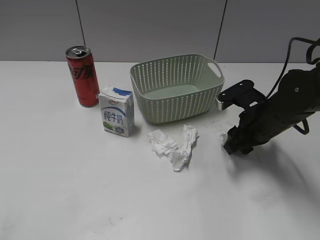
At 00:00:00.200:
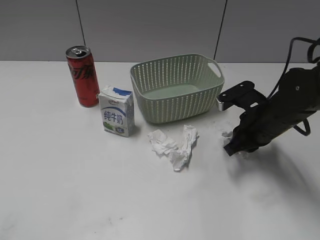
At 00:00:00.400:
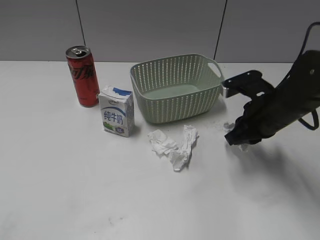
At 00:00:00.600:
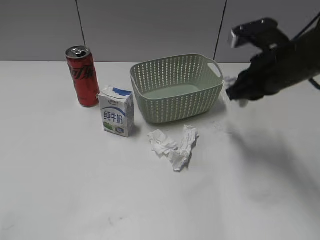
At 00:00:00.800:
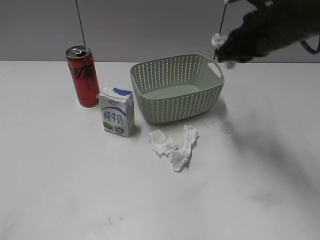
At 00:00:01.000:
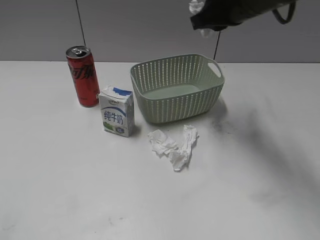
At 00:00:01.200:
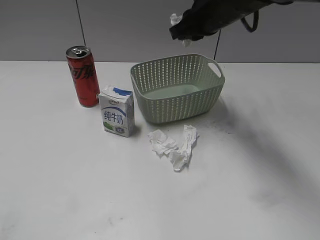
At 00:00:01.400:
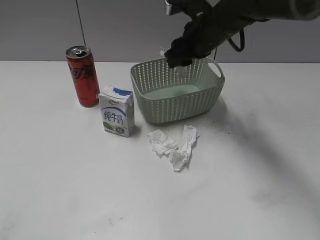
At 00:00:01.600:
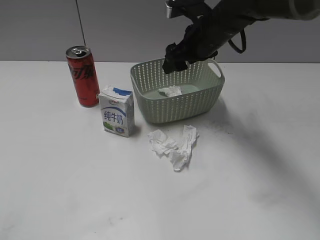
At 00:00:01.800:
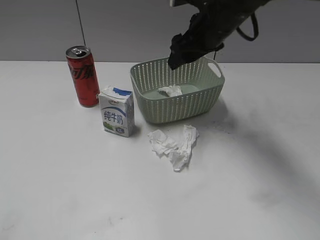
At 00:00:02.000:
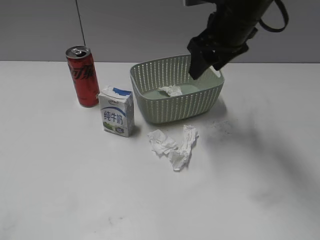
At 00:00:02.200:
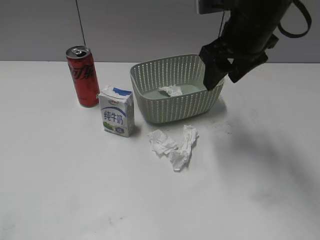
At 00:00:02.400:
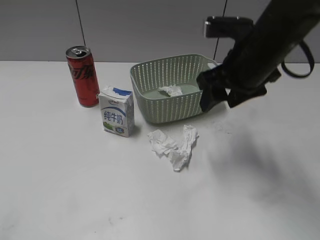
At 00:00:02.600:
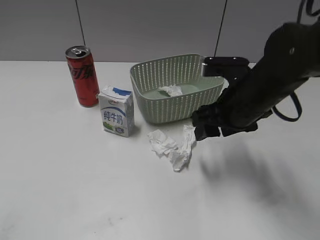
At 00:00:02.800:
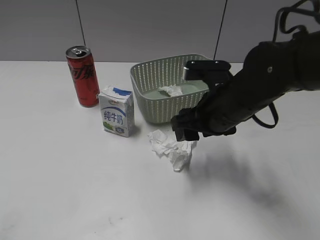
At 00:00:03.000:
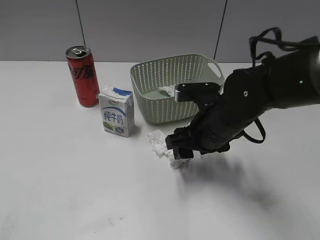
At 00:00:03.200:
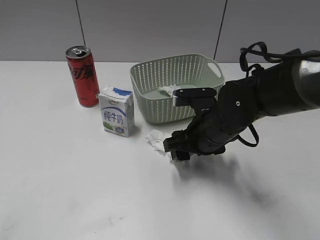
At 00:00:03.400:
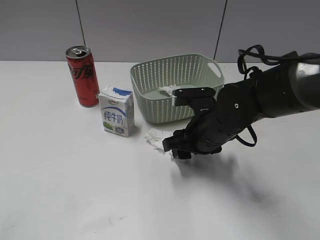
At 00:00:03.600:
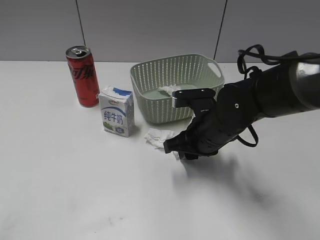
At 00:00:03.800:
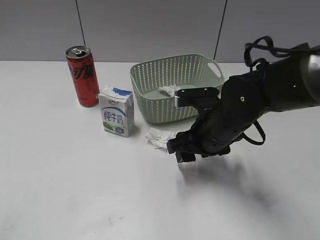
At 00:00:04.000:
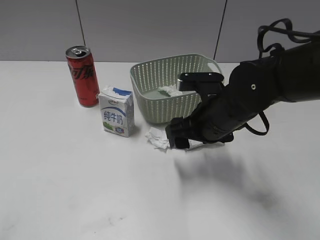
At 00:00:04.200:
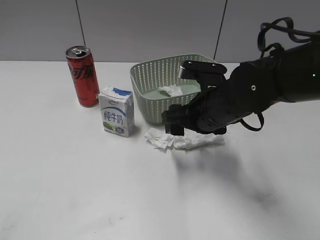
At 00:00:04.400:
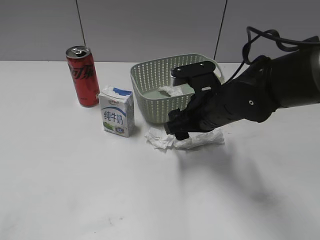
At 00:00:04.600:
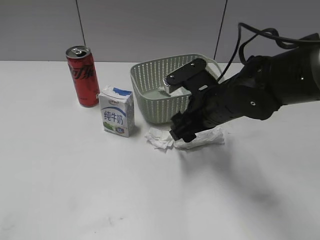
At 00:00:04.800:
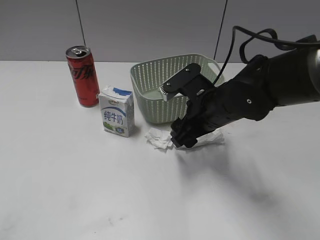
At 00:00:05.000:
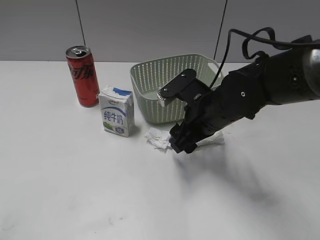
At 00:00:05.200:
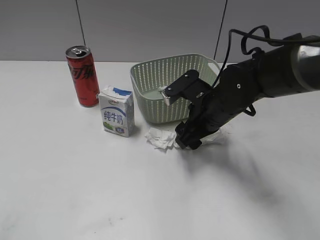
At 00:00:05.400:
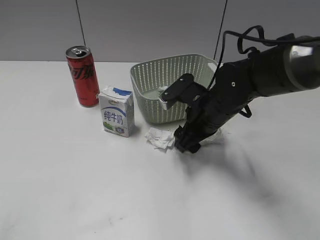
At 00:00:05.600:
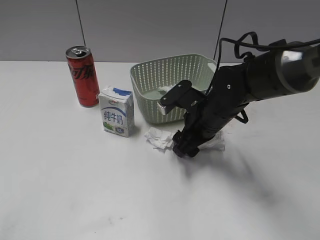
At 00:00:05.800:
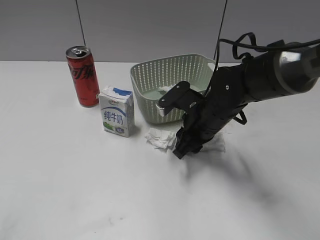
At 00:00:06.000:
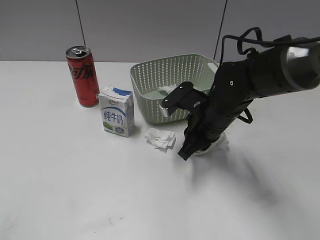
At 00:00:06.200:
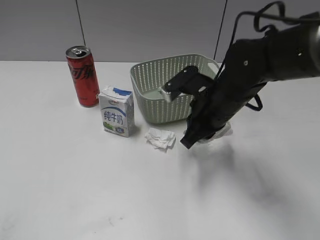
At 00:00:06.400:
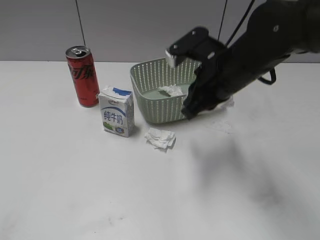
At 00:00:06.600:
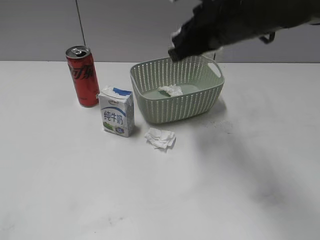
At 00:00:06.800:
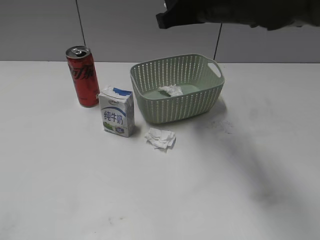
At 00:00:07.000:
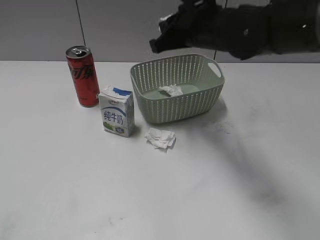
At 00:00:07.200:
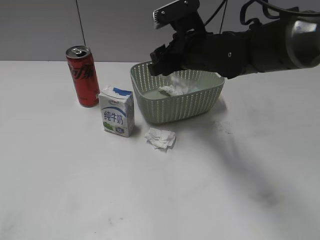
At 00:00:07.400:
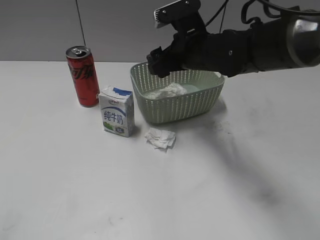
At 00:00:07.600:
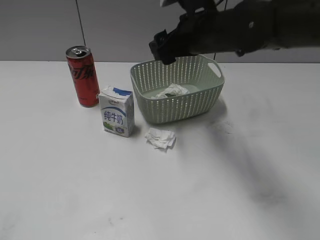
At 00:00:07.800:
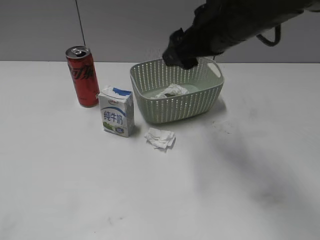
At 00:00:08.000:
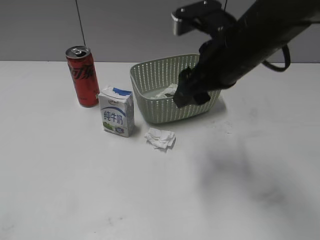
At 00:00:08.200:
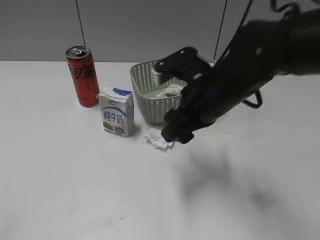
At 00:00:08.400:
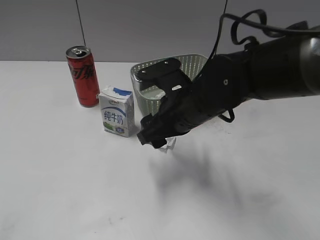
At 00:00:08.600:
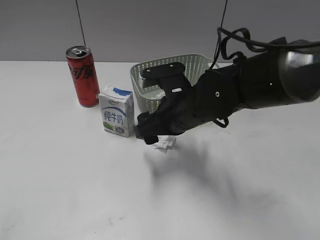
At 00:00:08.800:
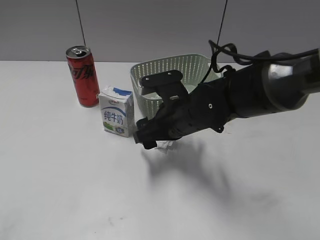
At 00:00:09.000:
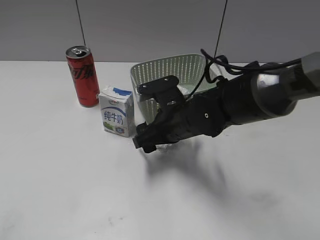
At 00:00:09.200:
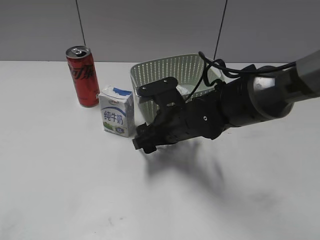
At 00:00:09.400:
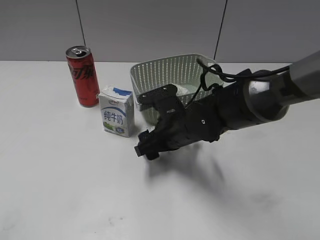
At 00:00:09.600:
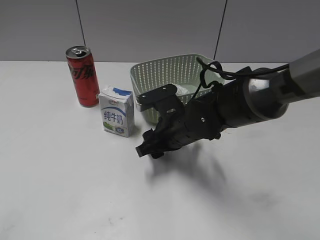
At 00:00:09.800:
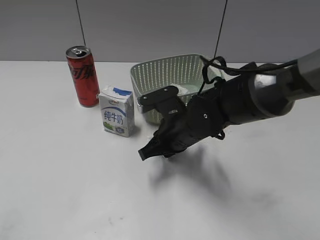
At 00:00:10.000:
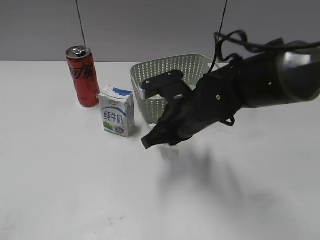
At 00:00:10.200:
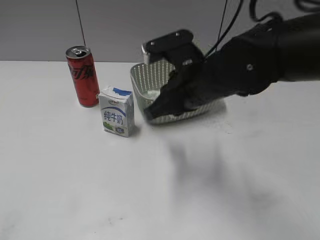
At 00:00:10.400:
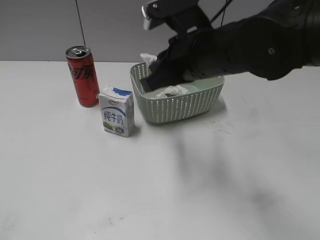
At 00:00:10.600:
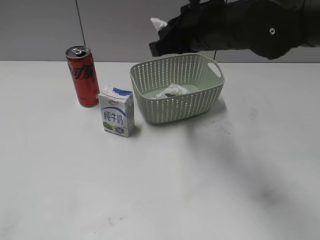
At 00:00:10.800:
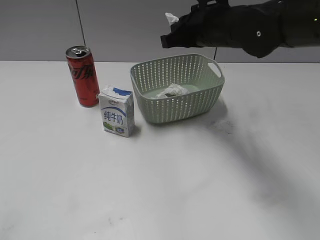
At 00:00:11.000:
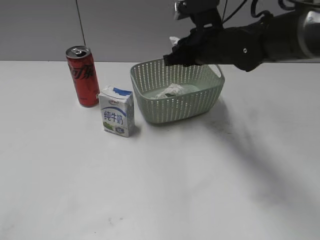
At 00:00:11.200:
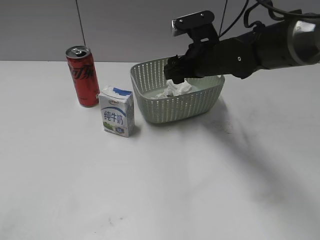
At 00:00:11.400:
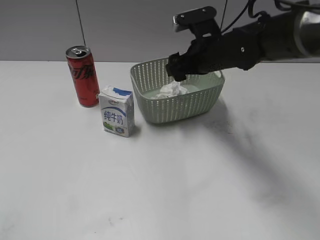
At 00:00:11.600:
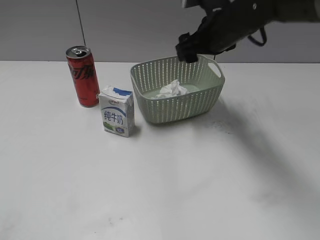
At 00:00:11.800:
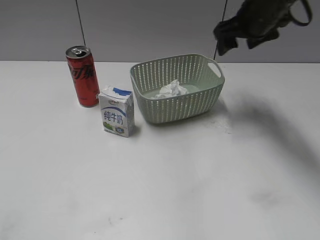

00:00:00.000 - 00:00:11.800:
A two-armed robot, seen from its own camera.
Step, 00:00:00.200 - 00:00:01.600: Place the waste paper in the basket with right gripper.
Step, 00:00:01.800 - 00:00:06.000: Grasp the waste paper with right gripper.
Step, 00:00:06.200 - 00:00:07.400: Place the waste paper in the basket with right gripper.
Step, 00:00:07.600 - 00:00:09.800: Grasp the waste paper with right gripper.
Step, 00:00:10.000 - 00:00:11.600: Place the waste paper in the basket with right gripper.
00:00:00.000 - 00:00:01.400: The right gripper goes roughly 20 cm forward, to the left and upward, and closes, then opens again.
00:00:01.400 - 00:00:03.000: The right gripper goes about 15 cm backward and downward.
00:00:03.000 - 00:00:04.400: The right gripper closes and opens again.
00:00:04.400 - 00:00:06.000: The right gripper closes.
00:00:06.000 - 00:00:07.400: The right gripper goes roughly 10 cm upward and forward, and opens its fingers.
00:00:07.400 - 00:00:08.800: The right gripper goes approximately 10 cm backward and downward.
00:00:08.800 - 00:00:10.400: The right gripper moves upward, approximately 15 cm, and closes its fingers.
00:00:10.400 - 00:00:11.800: The right gripper travels forward and to the right by about 20 cm, and opens its fingers.

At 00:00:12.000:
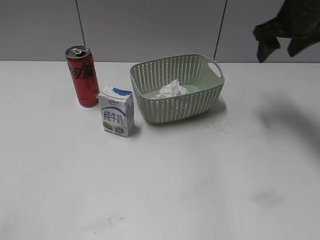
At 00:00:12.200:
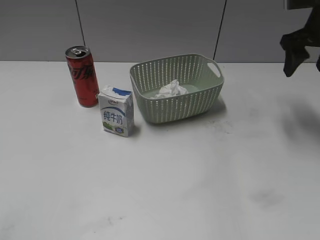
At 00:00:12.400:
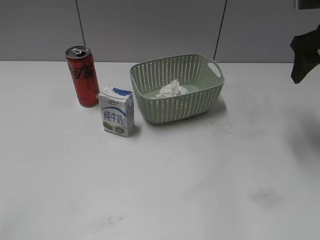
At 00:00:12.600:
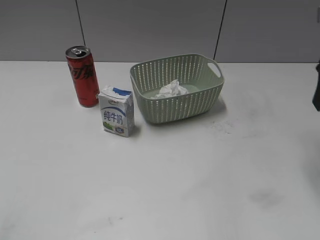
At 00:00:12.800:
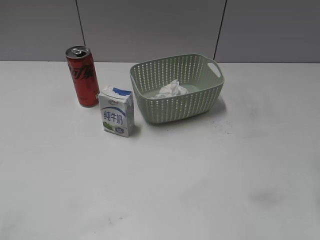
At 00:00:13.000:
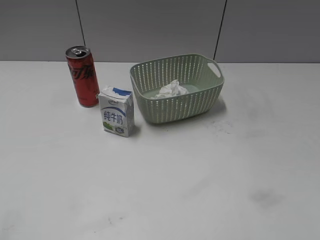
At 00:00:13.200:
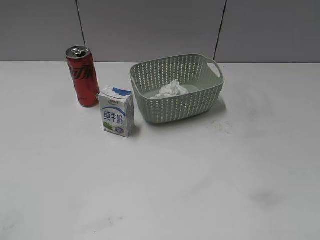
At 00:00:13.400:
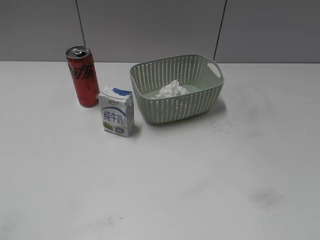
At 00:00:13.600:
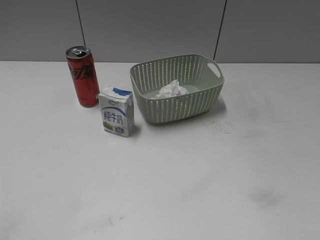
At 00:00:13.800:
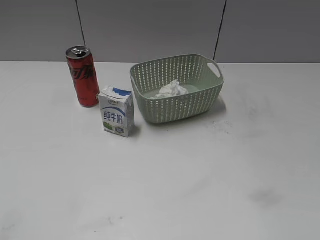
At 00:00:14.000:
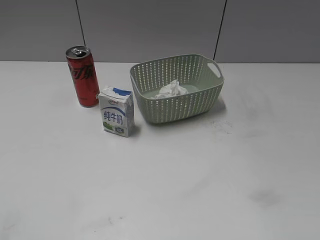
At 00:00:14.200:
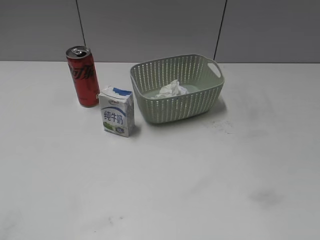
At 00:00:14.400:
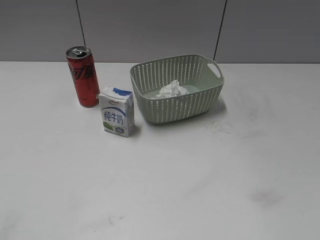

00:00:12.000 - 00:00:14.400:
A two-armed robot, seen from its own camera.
00:00:12.000 - 00:00:13.200: The right gripper goes approximately 30 cm backward.
